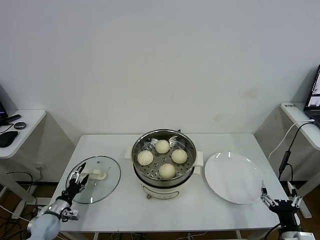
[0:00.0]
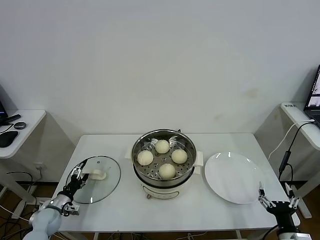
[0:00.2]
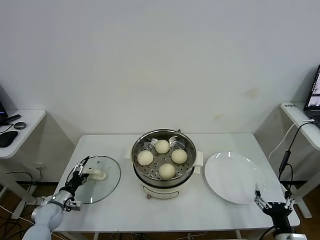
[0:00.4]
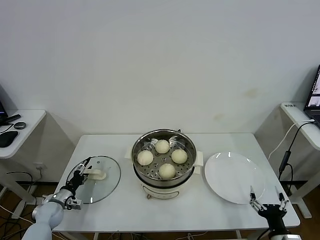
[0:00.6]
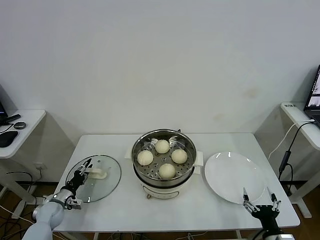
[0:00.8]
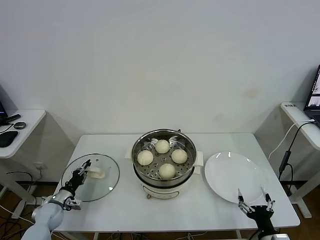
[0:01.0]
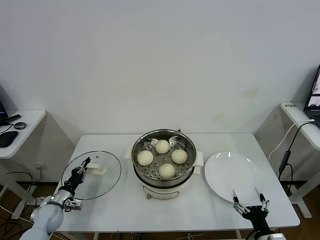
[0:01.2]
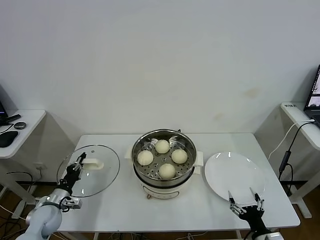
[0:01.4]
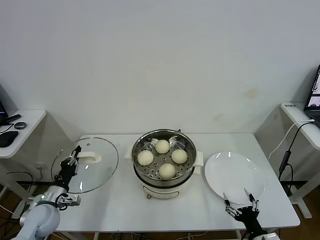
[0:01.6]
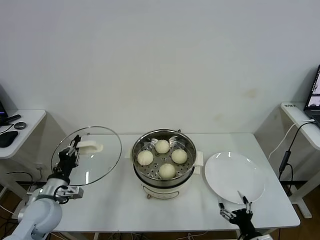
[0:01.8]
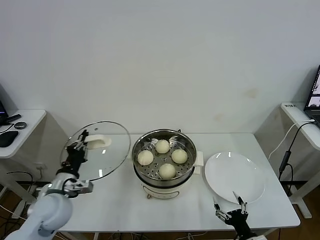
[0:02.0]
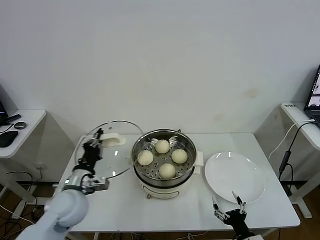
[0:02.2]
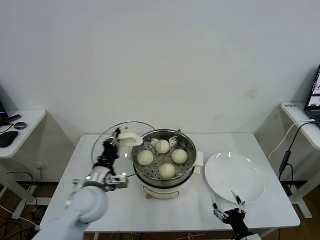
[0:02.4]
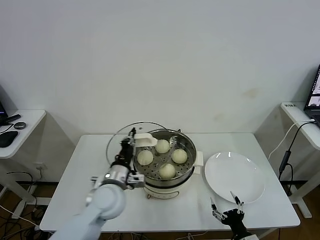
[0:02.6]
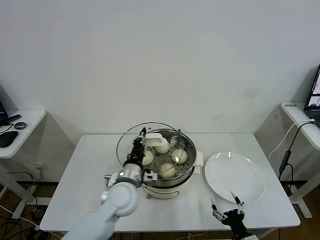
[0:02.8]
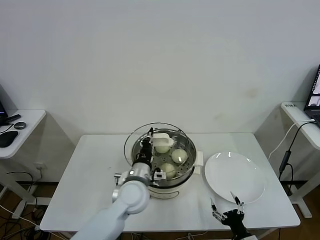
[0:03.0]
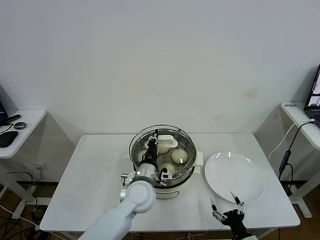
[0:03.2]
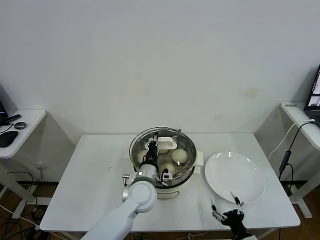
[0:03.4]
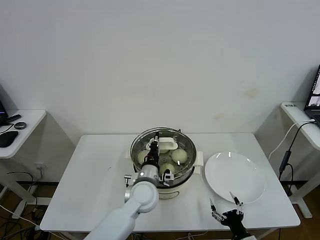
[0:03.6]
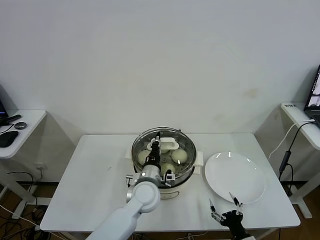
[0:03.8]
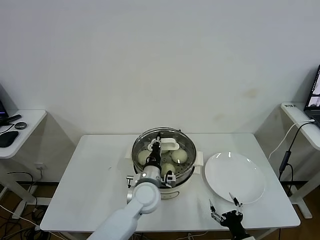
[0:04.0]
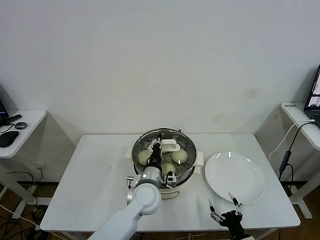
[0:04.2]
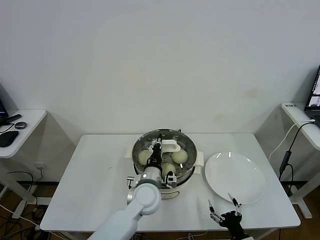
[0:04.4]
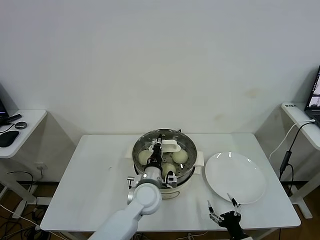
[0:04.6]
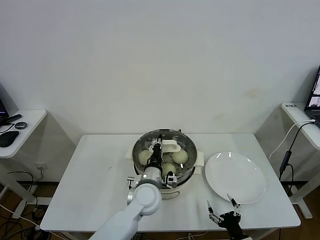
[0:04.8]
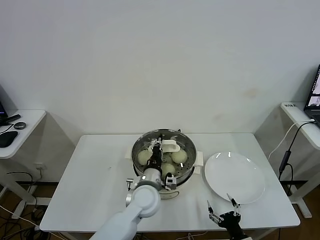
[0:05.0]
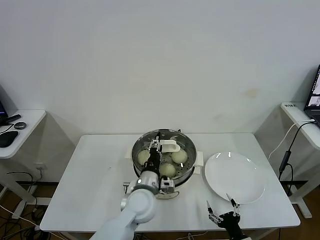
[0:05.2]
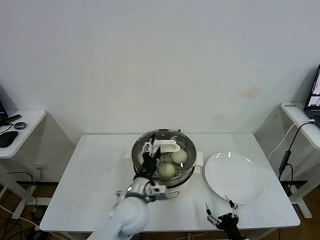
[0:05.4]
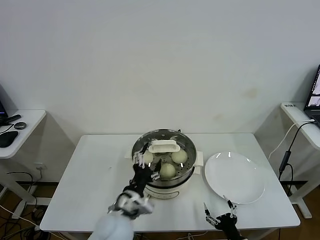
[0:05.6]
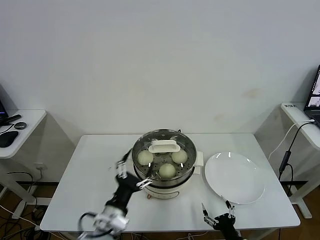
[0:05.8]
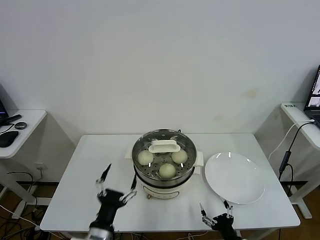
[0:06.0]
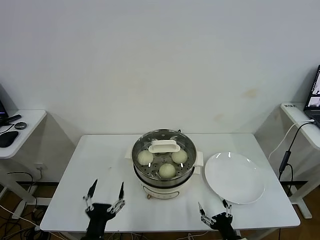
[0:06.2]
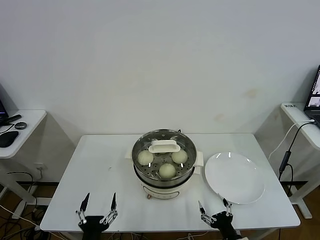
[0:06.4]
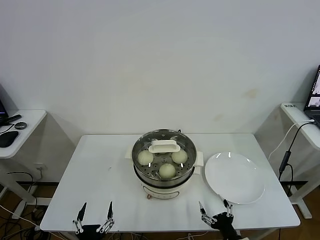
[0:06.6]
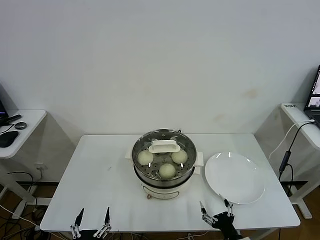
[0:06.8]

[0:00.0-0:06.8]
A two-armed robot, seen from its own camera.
Task of the whole recording: take steamed baozi put them in steamer.
Step, 0:01.4 to 0:05.2: Place the pot lid on the steamer with left gripper.
0:00.0 to 0:01.4: The left gripper heads upward, covering approximately 5 cm, and closes up. Meanwhile the right gripper changes place by roughly 5 cm.
0:01.4 to 0:02.8: The right gripper shifts by some 5 cm. The left gripper goes approximately 30 cm to the right and upward.
0:02.8 to 0:04.0: The left gripper goes some 5 cm to the right.
0:04.0 to 0:05.4: The left gripper is displaced backward by some 5 cm, and opens its fingers.
0:05.4 to 0:06.8: The left gripper heads backward, to the left and downward, covering approximately 30 cm.

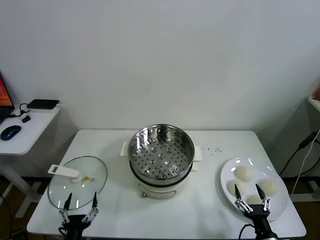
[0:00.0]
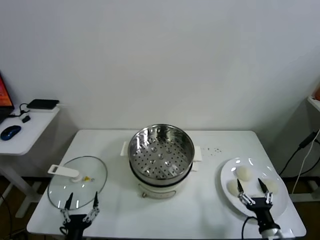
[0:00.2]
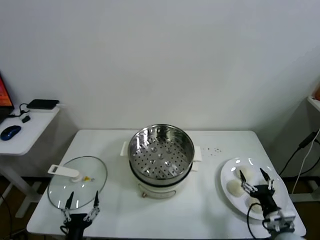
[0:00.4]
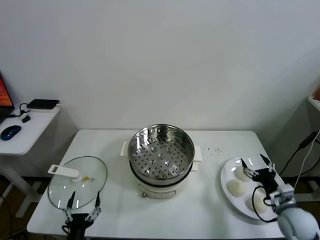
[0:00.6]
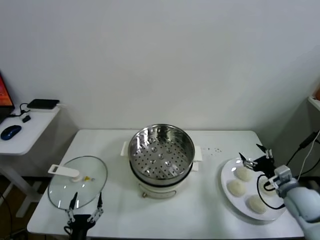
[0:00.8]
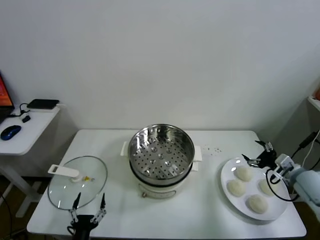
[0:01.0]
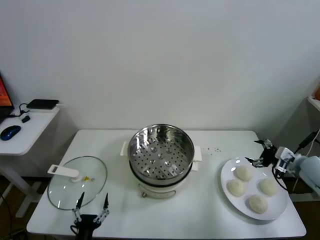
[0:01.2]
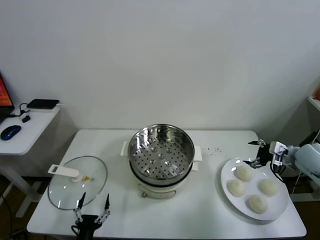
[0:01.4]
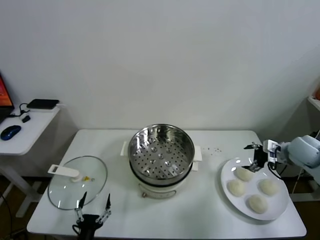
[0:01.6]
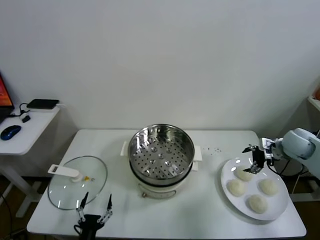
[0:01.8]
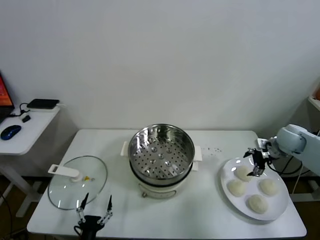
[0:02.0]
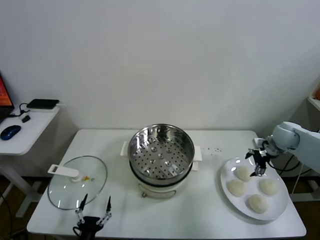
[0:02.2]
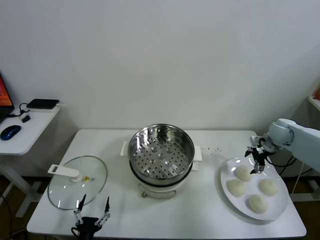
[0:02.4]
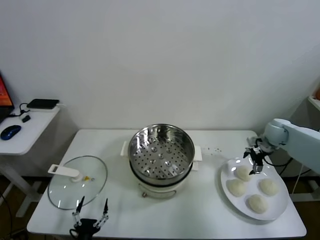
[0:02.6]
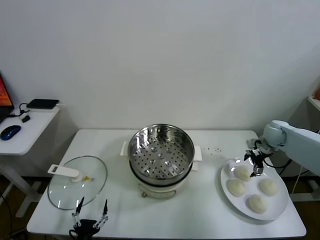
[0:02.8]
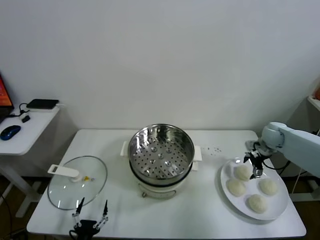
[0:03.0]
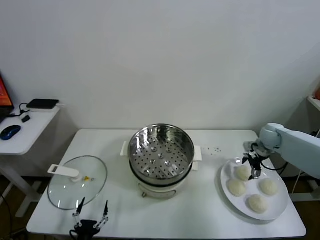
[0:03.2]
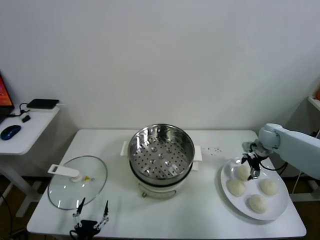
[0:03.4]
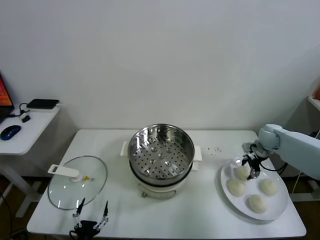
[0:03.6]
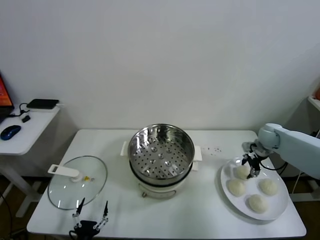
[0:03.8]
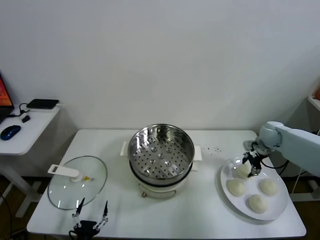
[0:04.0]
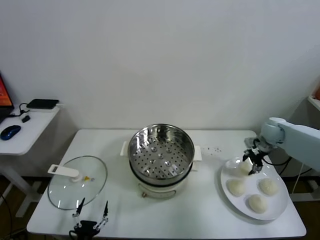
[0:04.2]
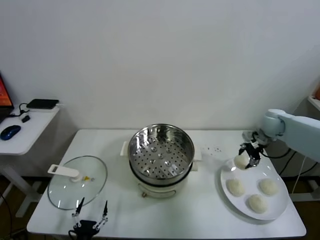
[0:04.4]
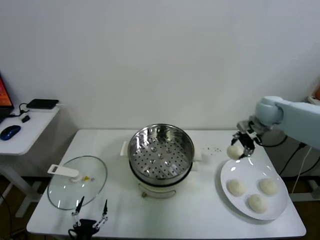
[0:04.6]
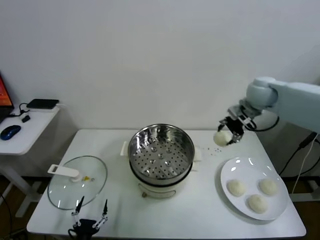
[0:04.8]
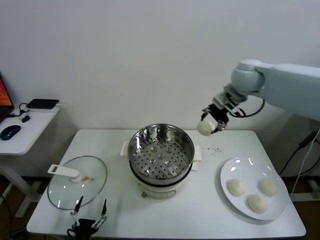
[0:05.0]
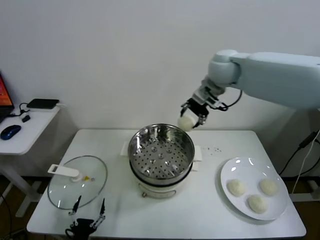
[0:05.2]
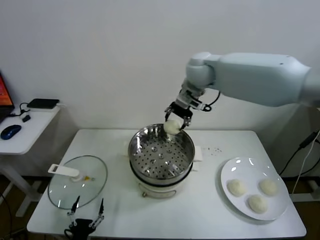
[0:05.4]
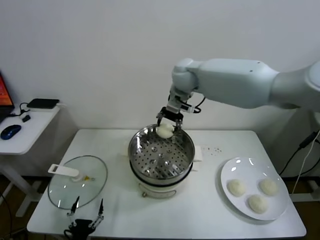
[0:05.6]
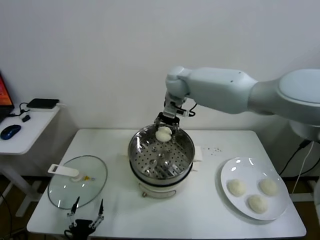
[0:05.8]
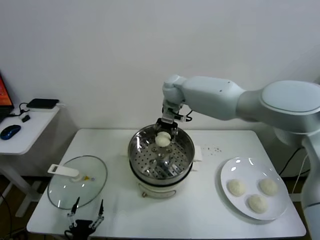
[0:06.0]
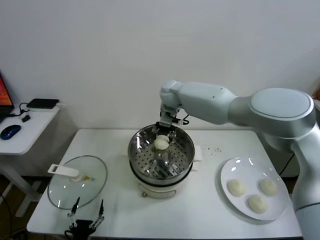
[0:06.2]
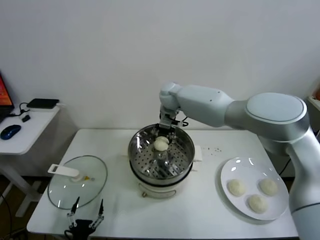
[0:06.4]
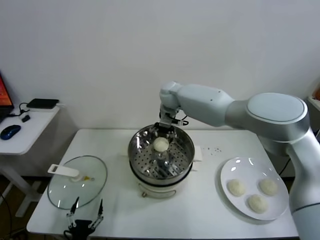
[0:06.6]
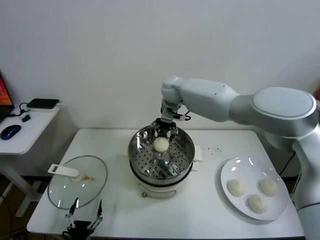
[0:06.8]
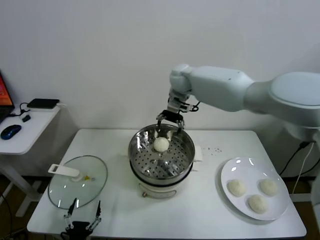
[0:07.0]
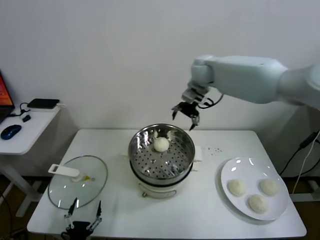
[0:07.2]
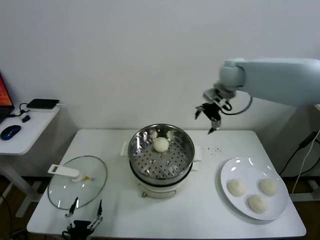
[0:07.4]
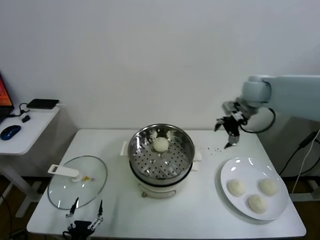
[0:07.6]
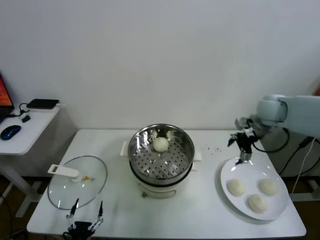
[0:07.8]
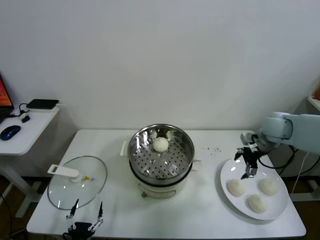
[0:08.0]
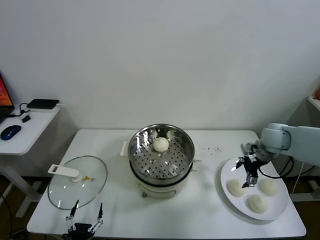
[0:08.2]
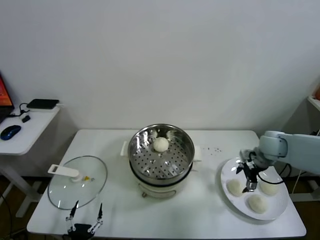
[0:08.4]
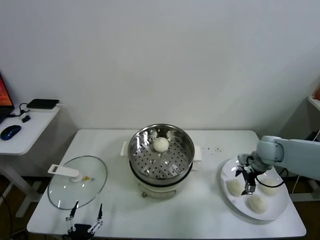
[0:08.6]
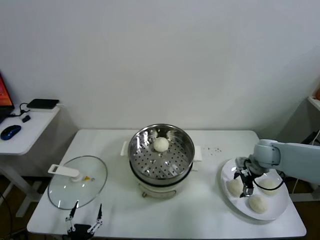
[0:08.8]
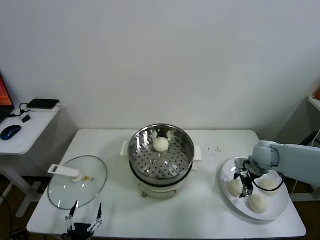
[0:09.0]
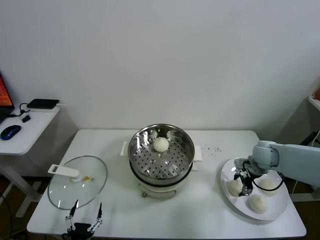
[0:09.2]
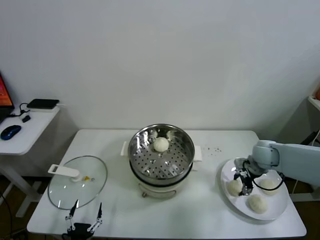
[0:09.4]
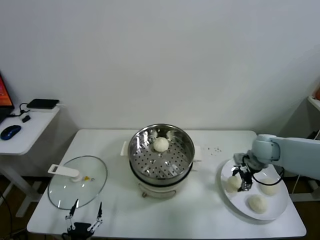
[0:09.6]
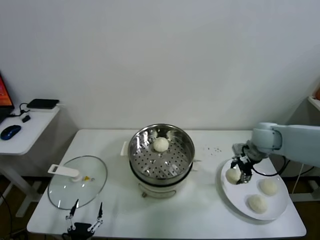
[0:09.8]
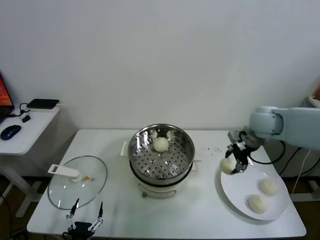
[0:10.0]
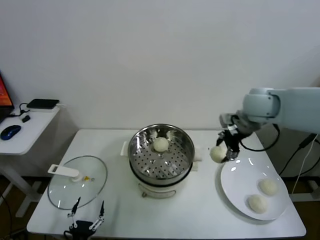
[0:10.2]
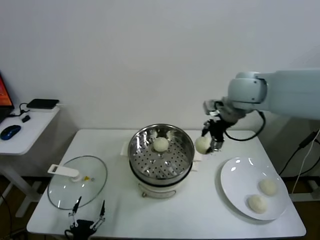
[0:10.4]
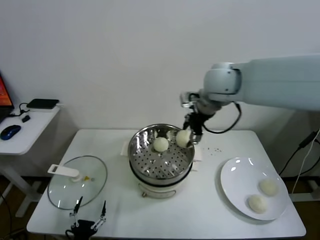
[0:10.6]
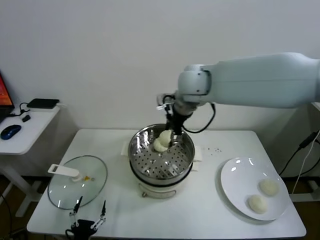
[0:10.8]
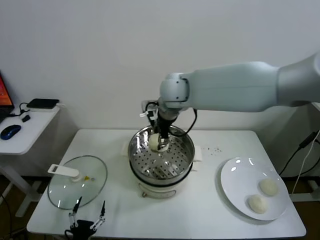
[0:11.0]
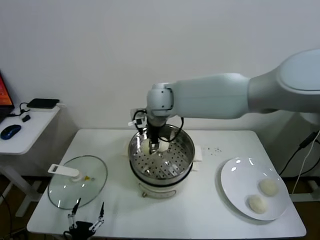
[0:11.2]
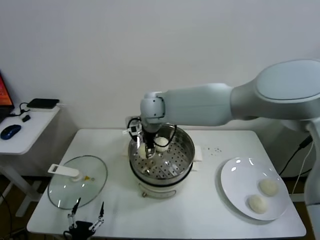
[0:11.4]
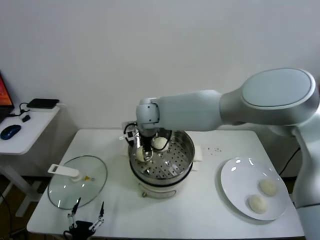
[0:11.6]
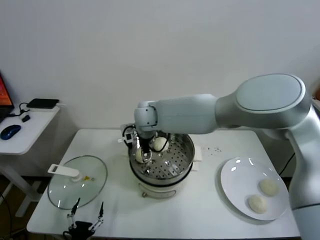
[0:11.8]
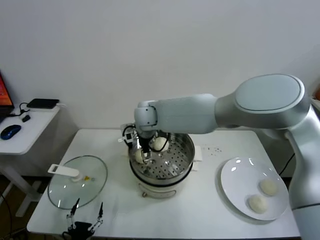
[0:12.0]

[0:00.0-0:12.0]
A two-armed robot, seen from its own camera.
Task of the whole recording: take steamed baozi put them in steamer.
Step, 0:00.0 to 0:03.8: Grasp the baozi in the plate with right gripper.
Step, 0:04.0 to 0:06.8: Place the baozi on the steamer with right gripper.
Step, 0:07.0 to 0:09.2: Grasp the baozi in the plate with right gripper.
0:01.6 to 0:03.0: The right gripper goes some 10 cm forward.
0:03.0 to 0:04.4: The right gripper goes about 10 cm upward, and closes its fingers.
0:04.4 to 0:06.0: The right gripper goes approximately 35 cm to the left.
0:06.0 to 0:07.6: The right gripper travels to the right by roughly 30 cm, and opens its fingers.
0:07.6 to 0:09.0: The right gripper is displaced downward by about 20 cm.
0:09.0 to 0:10.4: The right gripper travels upward and to the left by about 30 cm.
0:10.4 to 0:12.0: The right gripper goes about 30 cm to the left and downward, and opens.

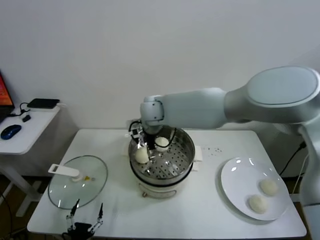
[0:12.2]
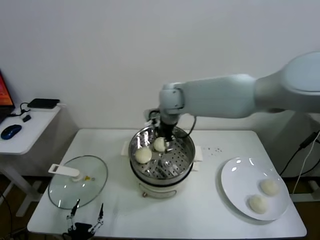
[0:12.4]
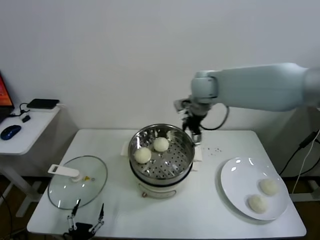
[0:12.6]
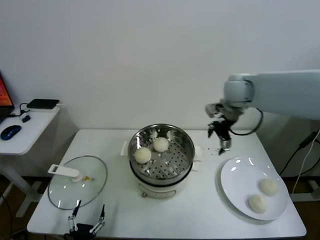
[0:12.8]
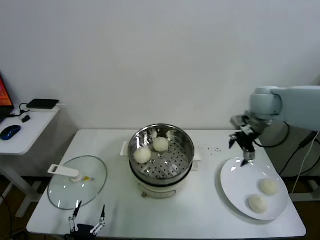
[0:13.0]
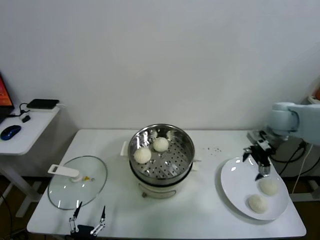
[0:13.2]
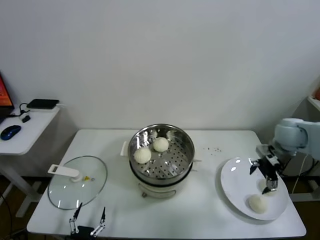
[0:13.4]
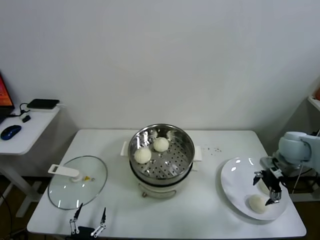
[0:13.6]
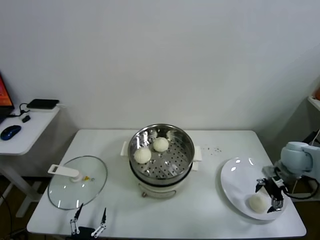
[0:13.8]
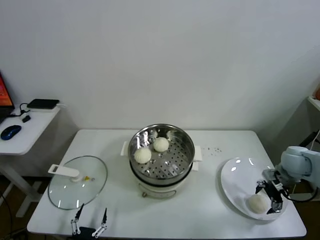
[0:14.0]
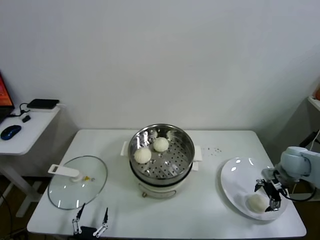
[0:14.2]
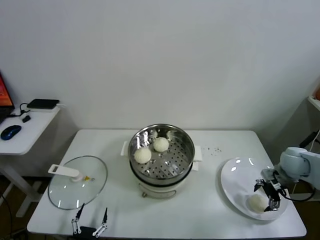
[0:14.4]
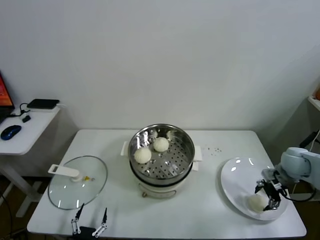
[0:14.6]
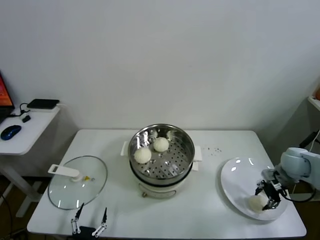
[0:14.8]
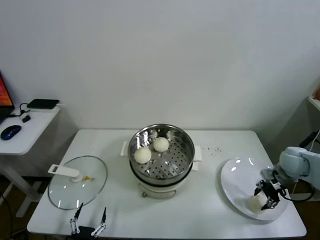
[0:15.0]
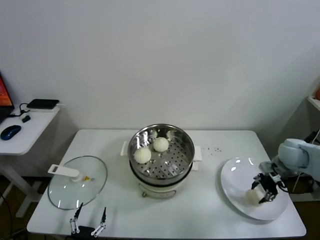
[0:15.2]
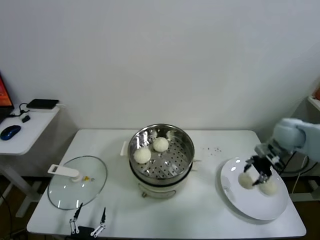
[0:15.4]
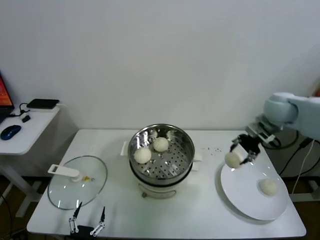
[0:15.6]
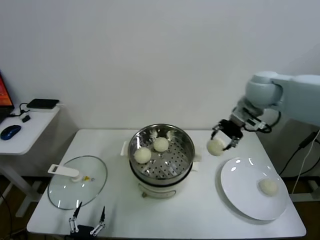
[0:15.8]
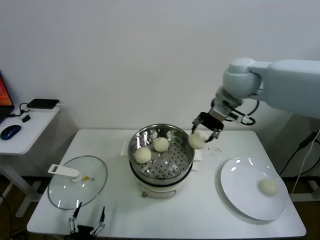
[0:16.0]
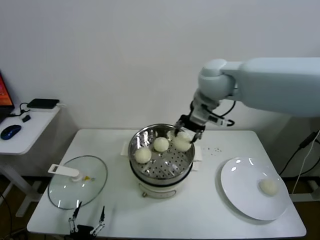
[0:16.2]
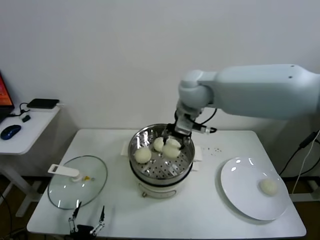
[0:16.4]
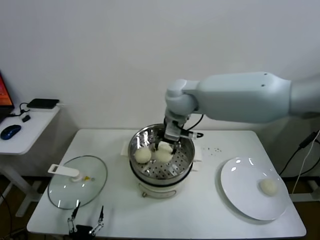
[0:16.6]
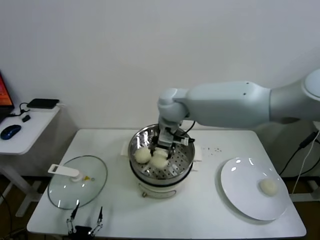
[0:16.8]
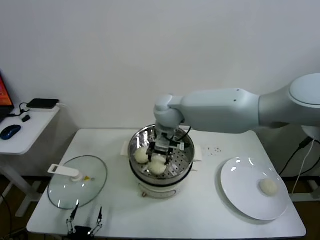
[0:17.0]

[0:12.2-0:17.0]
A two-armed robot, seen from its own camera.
Task of the whole recording: take steamed baozi put them in steamer.
Step, 0:12.4 to 0:14.8: Grasp the baozi in the plate with right gripper.
0:12.2 to 0:13.8: The right gripper shifts about 50 cm to the right.
0:13.8 to 0:15.4: The right gripper moves upward and forward, roughly 10 cm, and closes its fingers.
0:15.4 to 0:17.0: The right gripper goes approximately 40 cm to the left.
